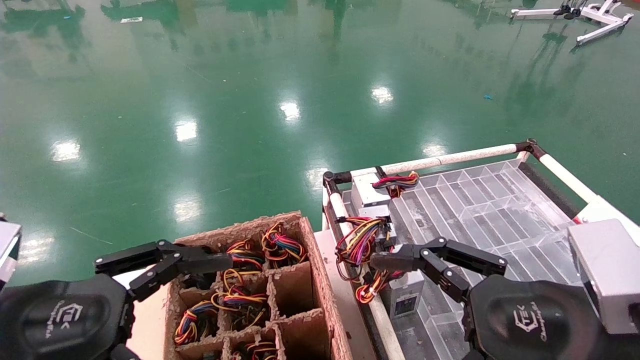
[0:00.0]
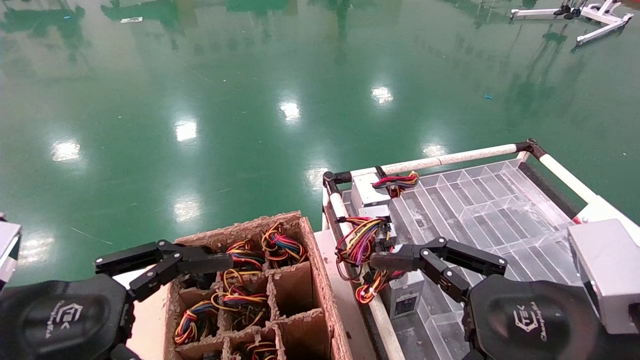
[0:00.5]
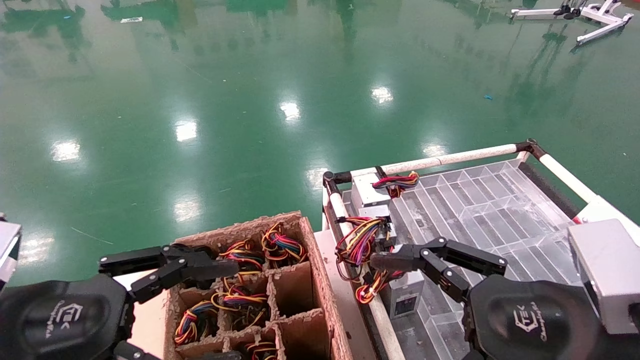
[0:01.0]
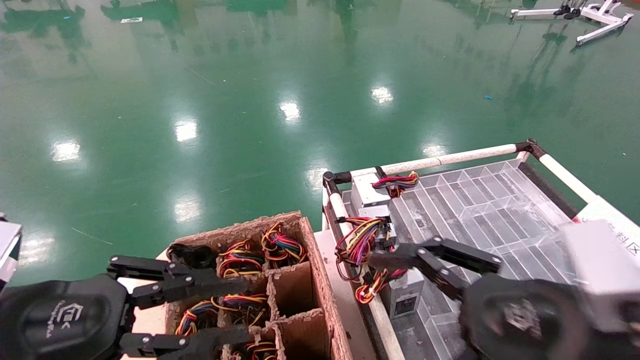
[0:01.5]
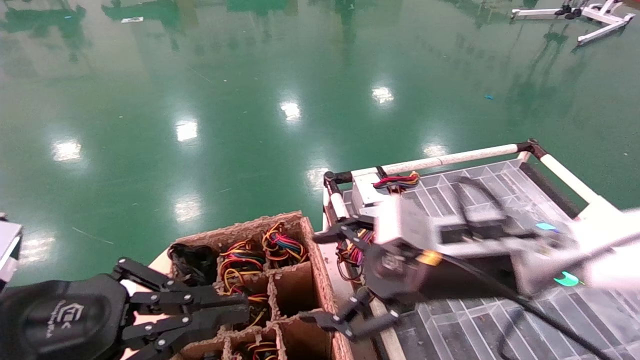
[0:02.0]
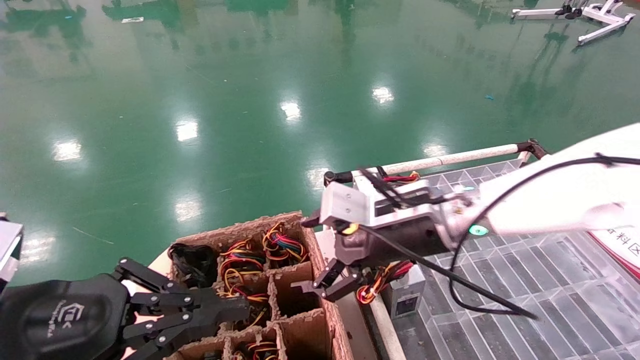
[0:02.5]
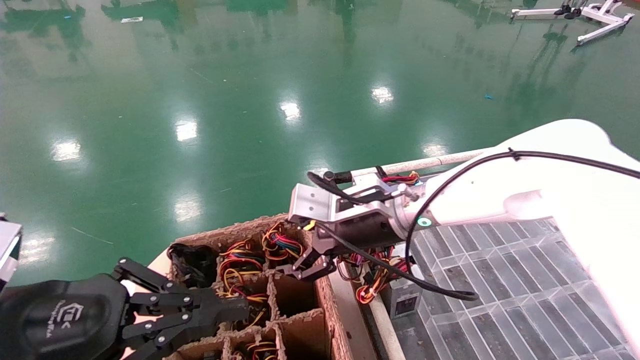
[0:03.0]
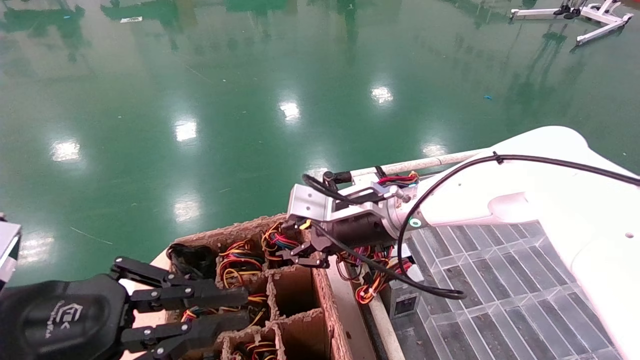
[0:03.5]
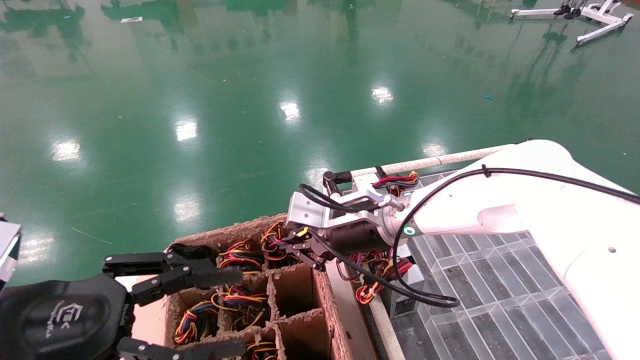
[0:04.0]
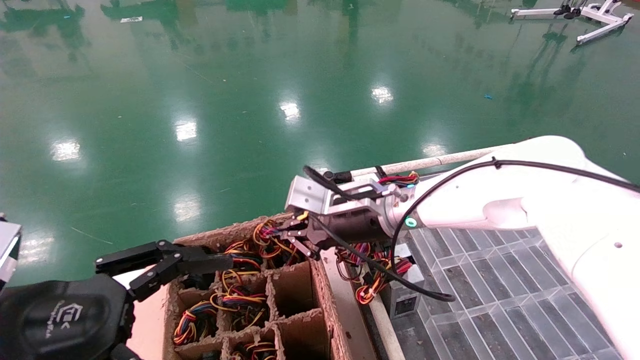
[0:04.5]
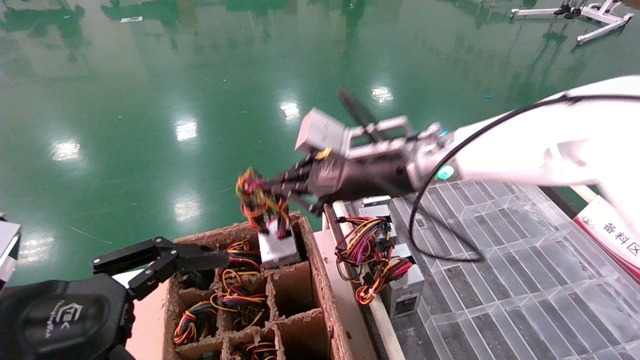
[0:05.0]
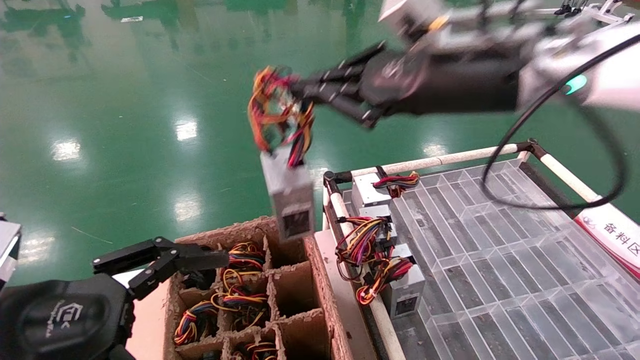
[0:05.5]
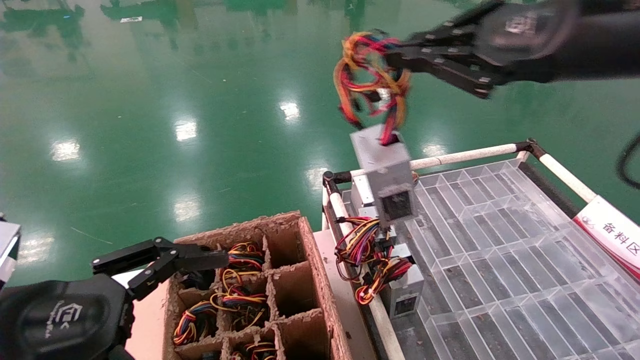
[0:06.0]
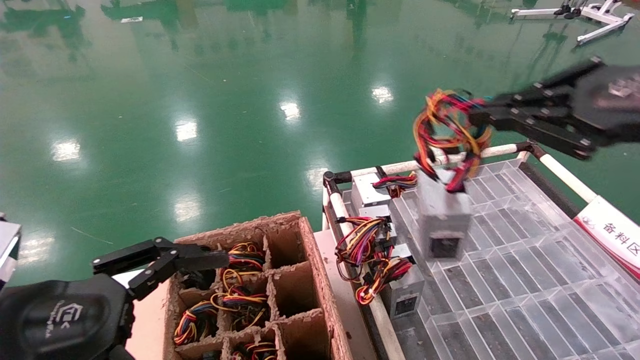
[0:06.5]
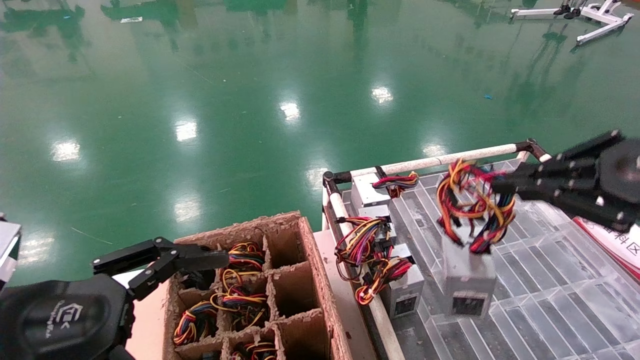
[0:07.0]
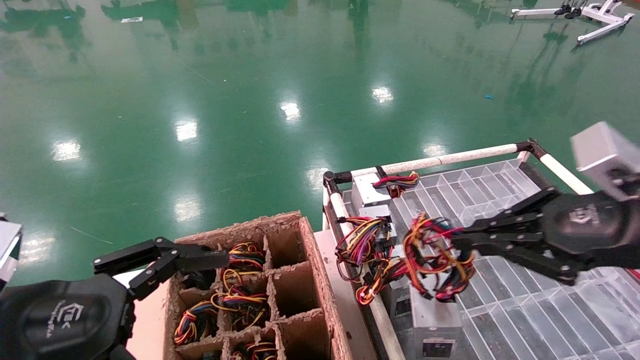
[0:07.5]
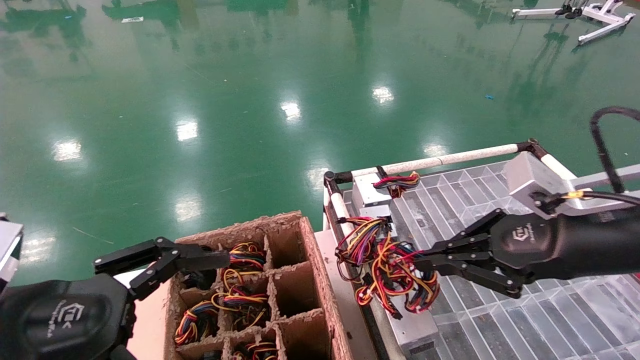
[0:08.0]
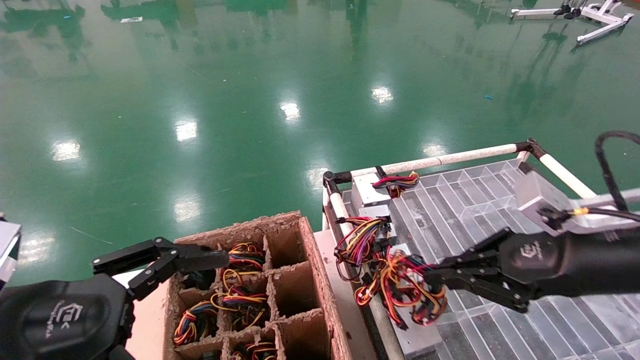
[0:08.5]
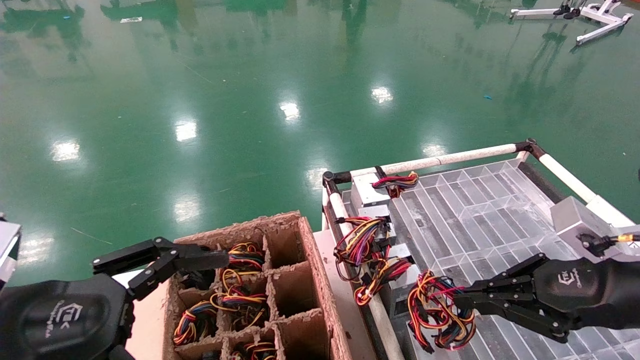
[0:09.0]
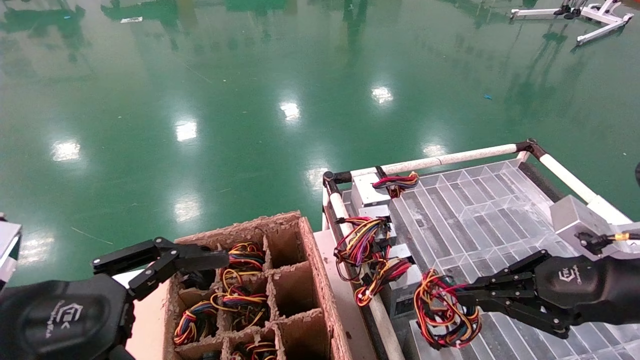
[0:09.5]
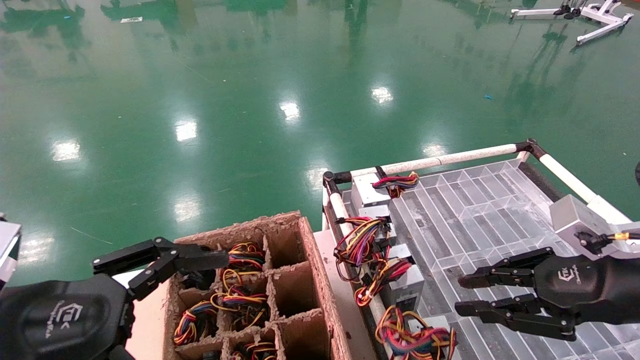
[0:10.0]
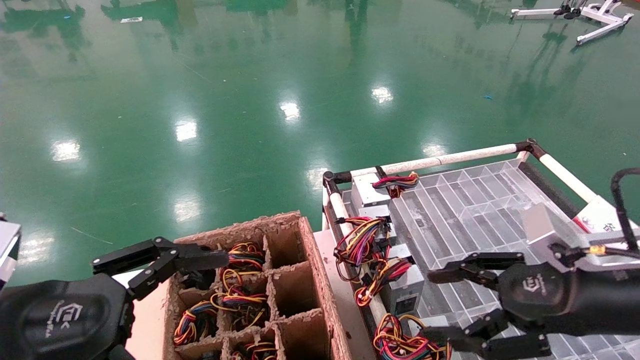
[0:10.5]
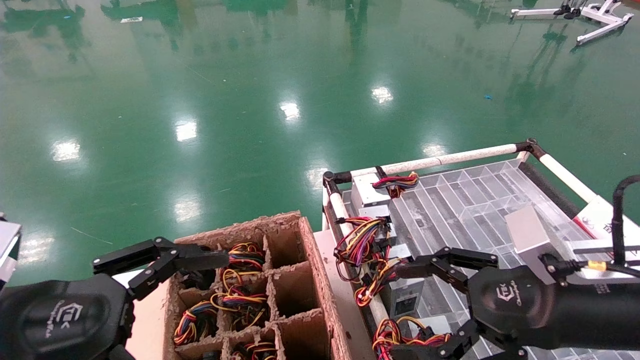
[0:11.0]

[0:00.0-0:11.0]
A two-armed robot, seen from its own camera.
Step, 0:01.0 to 0:04.0: Grab and lift the power supply from the large box.
Step, 0:04.5 to 0:09.5: Place the power supply on the operating table.
0:00.0 to 0:02.0: The left gripper closes its fingers. The right gripper heads forward and to the left, covering about 15 cm.
0:02.0 to 0:03.5: The right gripper shifts some 15 cm forward and to the left, and closes its fingers.
0:03.5 to 0:05.5: The left gripper opens; the right gripper is displaced upward, backward and to the right by approximately 20 cm, and closes its fingers.
0:05.5 to 0:07.5: The right gripper moves to the right, downward and backward, about 20 cm.
0:07.5 to 0:09.0: The right gripper goes about 5 cm downward.
0:09.0 to 0:11.0: The right gripper heads to the left, covering some 10 cm, and opens.
